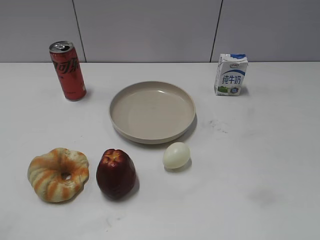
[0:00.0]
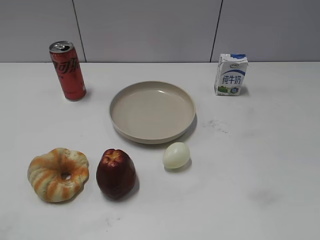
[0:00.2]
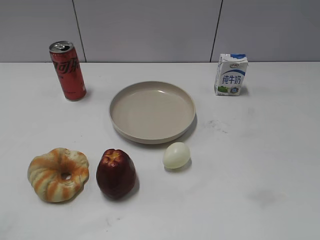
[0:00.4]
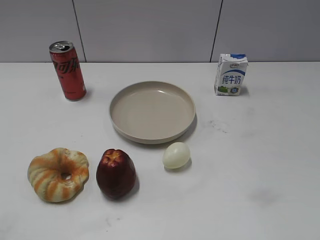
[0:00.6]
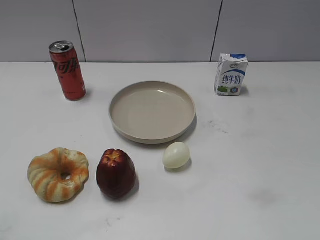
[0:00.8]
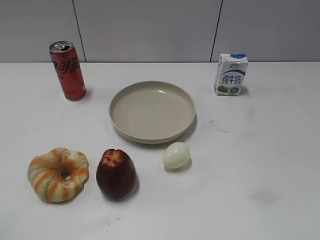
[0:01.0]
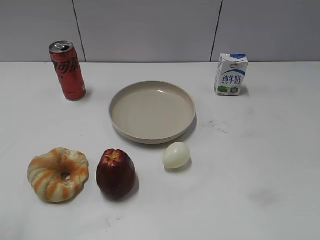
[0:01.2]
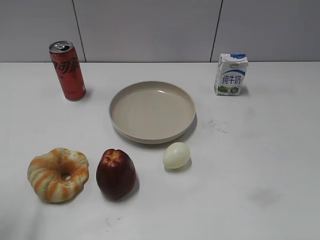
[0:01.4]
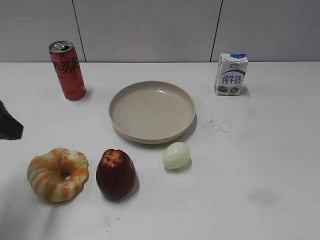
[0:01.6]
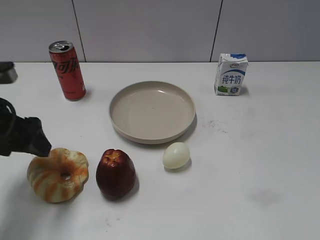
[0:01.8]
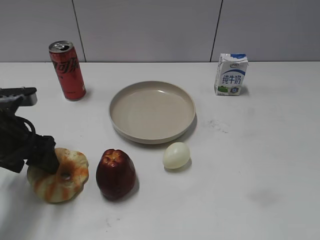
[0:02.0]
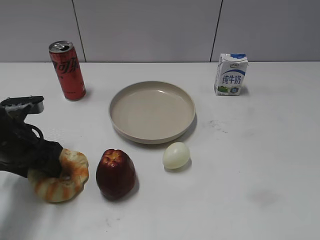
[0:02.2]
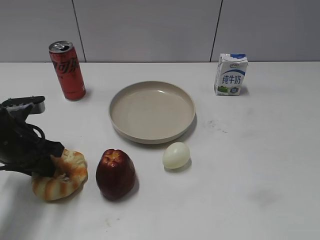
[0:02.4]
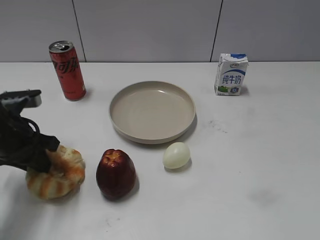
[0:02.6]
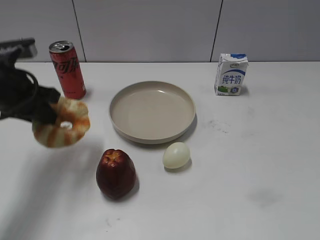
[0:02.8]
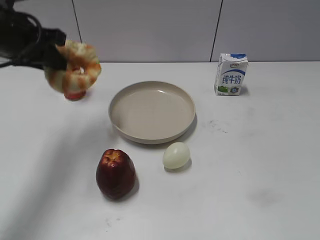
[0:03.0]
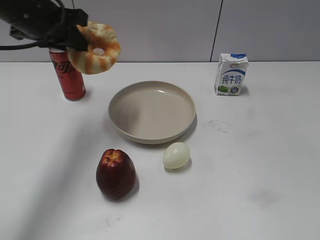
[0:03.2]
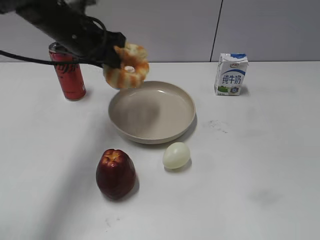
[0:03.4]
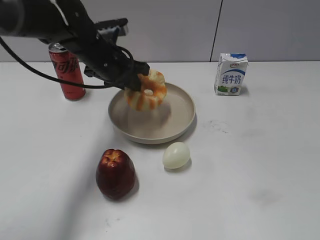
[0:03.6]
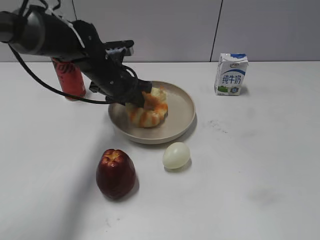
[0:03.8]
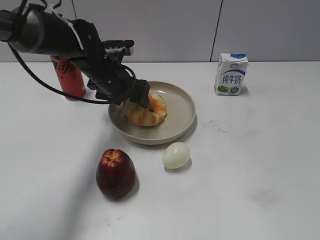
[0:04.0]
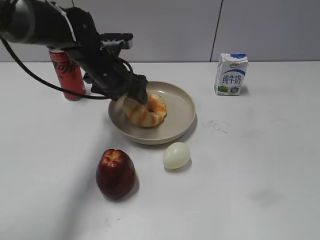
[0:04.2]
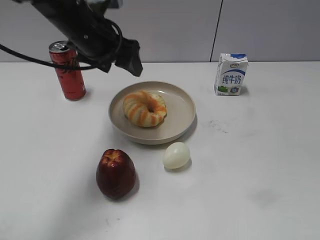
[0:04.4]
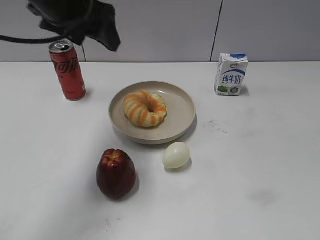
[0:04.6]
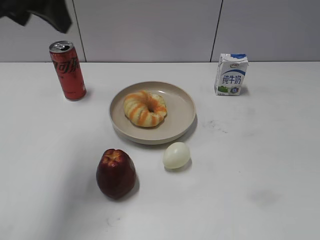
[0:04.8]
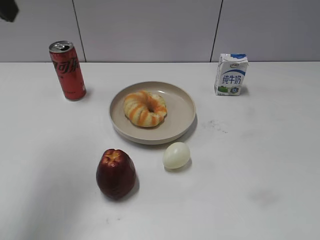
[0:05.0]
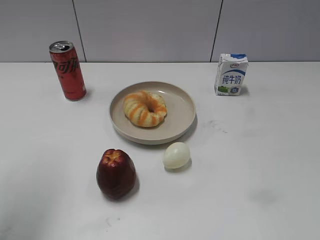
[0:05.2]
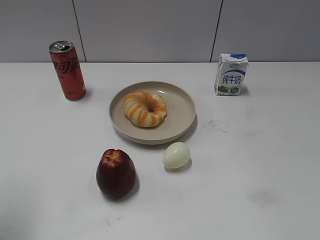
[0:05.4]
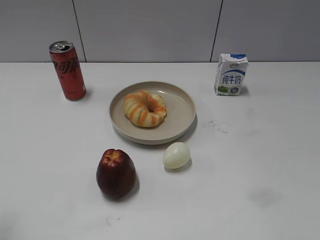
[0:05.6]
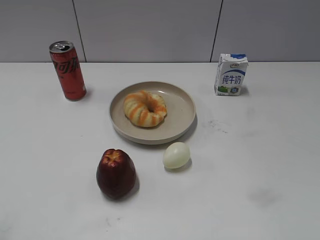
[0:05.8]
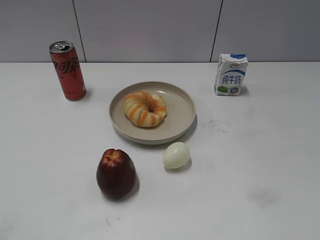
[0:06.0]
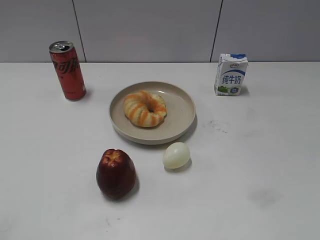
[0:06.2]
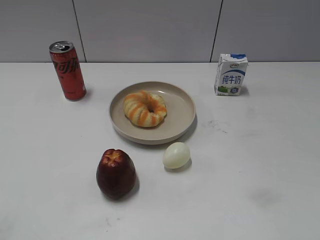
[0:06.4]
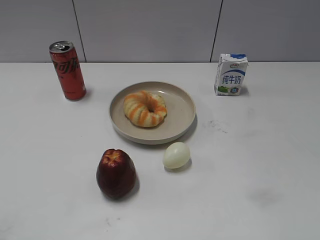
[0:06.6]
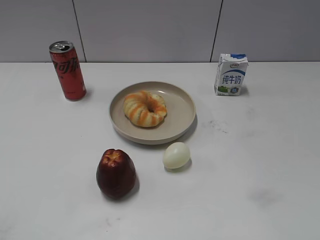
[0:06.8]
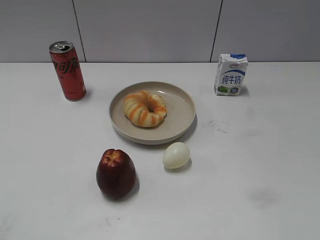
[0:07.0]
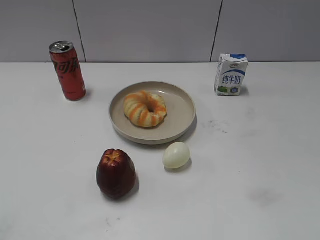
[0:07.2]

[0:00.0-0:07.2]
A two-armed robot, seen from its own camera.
Step, 0:00.8 to 0:02.4: Grasp the round bread with left gripper.
Step, 0:02.6 to 0:04.2: Place the round bread on the plate with left gripper.
0:01.4 to 0:02.8: The left gripper heads forward and to the right, covering about 15 cm, goes downward and returns, some 15 cm each way, and closes up.
0:02.8 to 0:04.4: The left gripper moves up and down over about 15 cm, changing direction 2 times, and opens up.
0:04.4 to 0:05.8: The left gripper travels backward and to the left by about 35 cm.

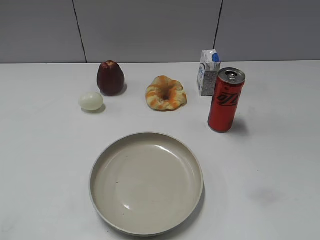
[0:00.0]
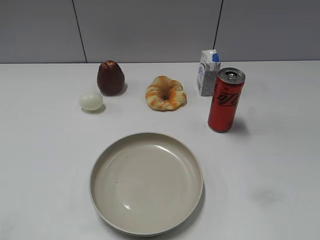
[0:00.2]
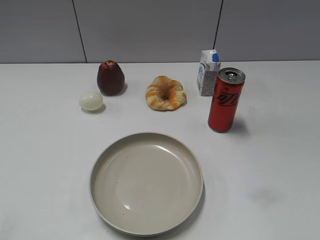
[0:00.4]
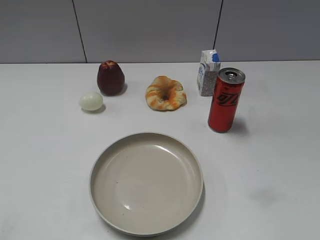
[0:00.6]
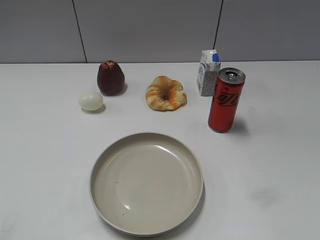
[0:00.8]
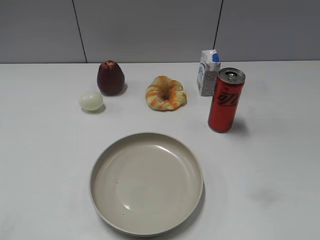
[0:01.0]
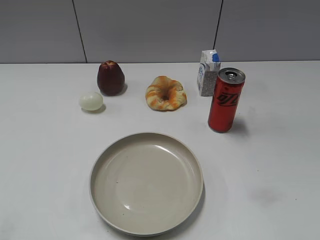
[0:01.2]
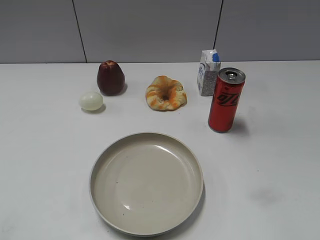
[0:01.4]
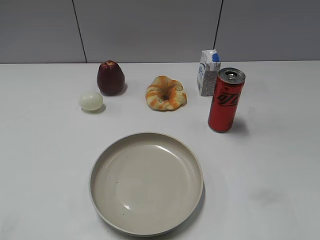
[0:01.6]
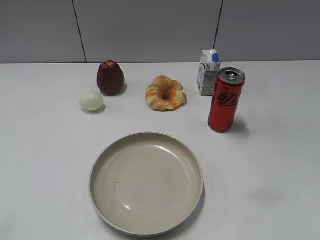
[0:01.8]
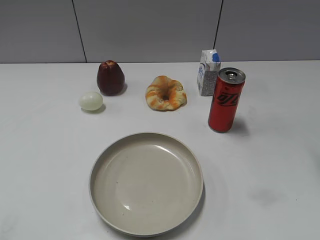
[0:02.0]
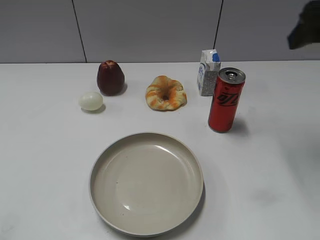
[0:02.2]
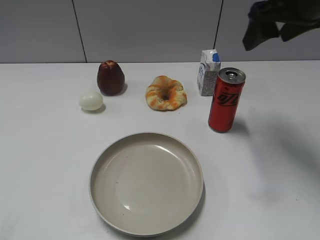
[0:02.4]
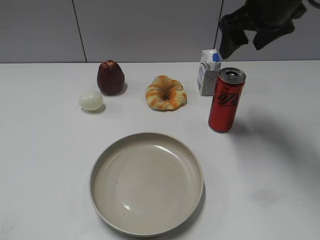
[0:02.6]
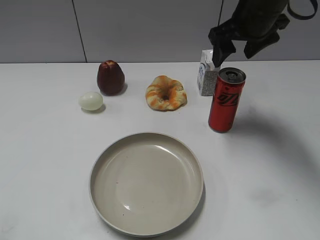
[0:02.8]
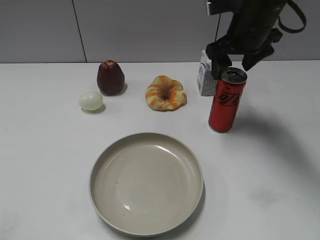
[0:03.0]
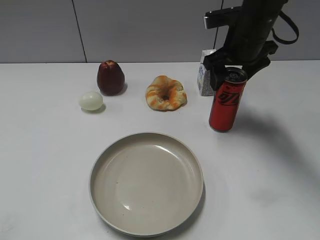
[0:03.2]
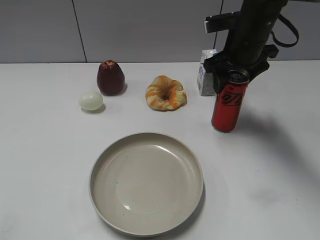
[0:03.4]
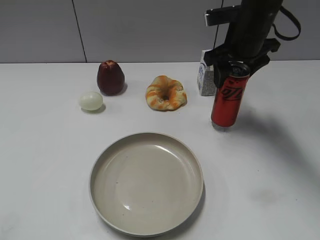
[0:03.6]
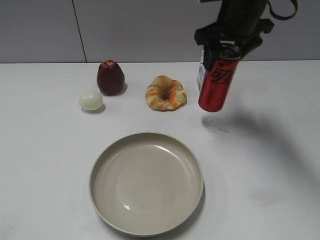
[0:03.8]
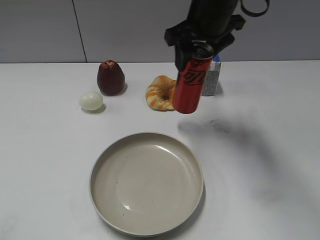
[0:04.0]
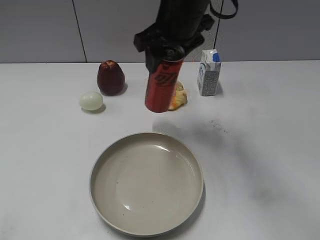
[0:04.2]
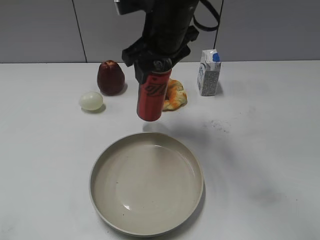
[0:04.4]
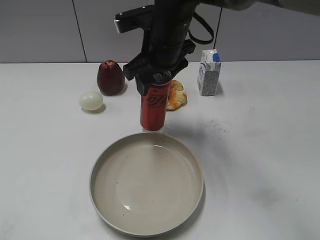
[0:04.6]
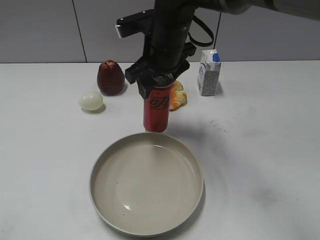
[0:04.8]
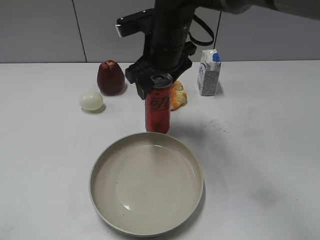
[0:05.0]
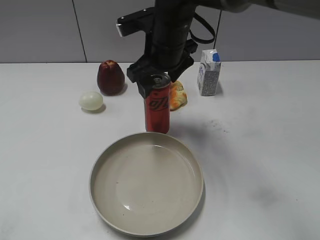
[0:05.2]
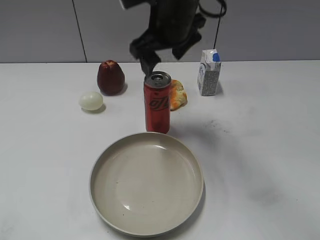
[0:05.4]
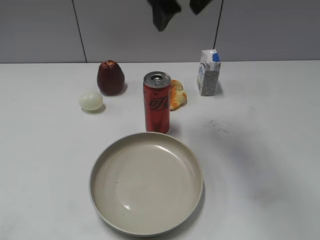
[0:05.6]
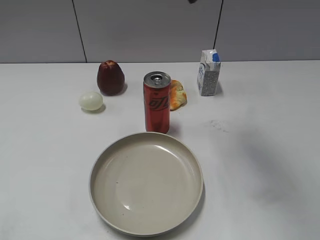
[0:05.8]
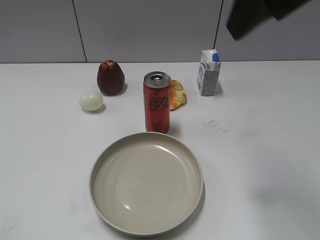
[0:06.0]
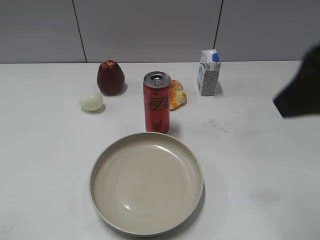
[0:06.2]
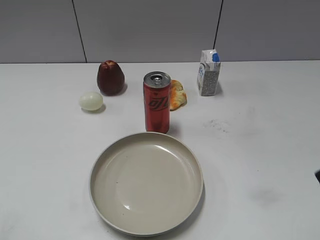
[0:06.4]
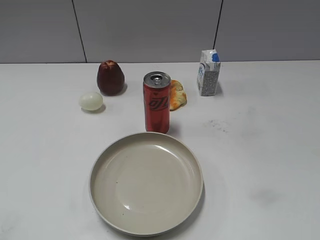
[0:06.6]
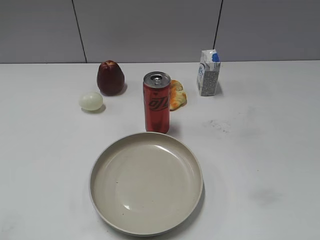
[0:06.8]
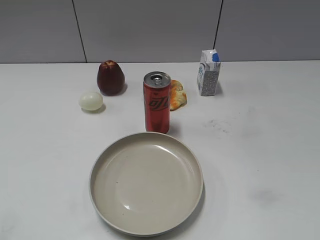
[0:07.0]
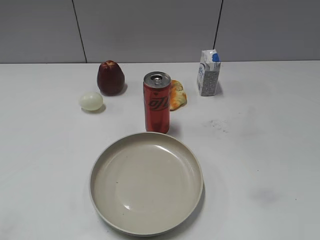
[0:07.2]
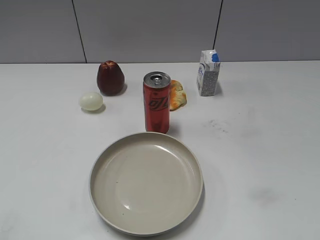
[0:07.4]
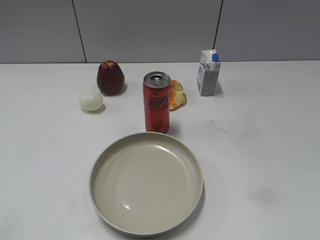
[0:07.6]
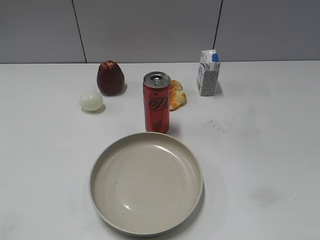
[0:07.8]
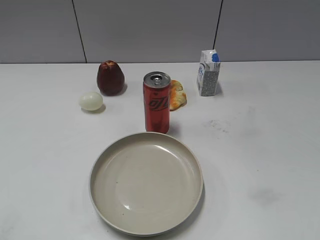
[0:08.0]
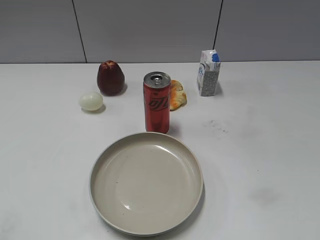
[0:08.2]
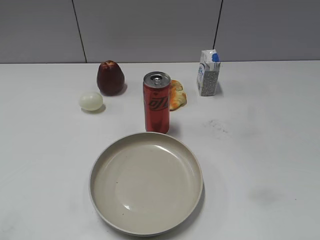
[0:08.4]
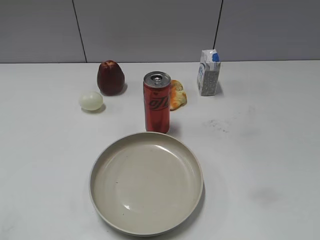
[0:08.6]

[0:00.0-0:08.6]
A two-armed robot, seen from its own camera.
Step, 0:03.4 to 0:05.2: Place the cola on the plate with right gripper.
0:01.4 to 0:02.8: The right gripper goes some 40 cm forward and to the left.
0:02.8 to 0:04.4: The right gripper goes roughly 15 cm to the left, and closes up.
0:04.4 to 0:05.8: The right gripper goes some 15 cm upward, to the right and backward, and opens up.
0:05.8 to 0:07.2: The right gripper travels backward, to the right and downward by roughly 35 cm.

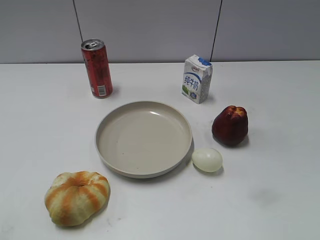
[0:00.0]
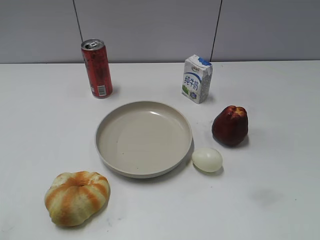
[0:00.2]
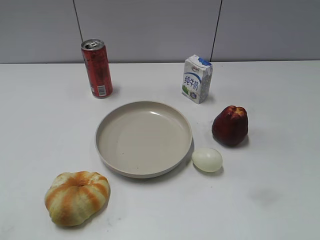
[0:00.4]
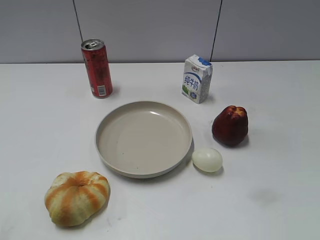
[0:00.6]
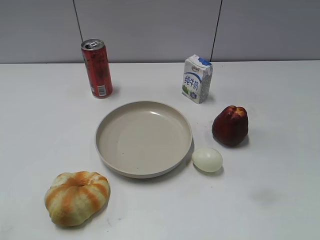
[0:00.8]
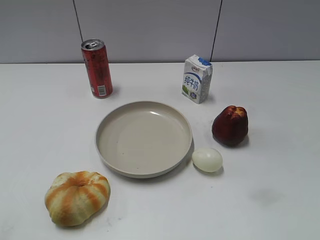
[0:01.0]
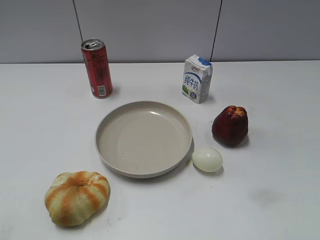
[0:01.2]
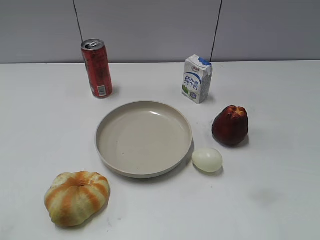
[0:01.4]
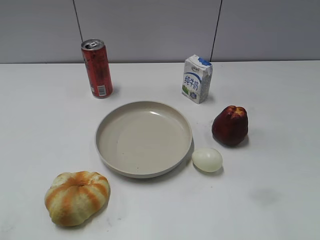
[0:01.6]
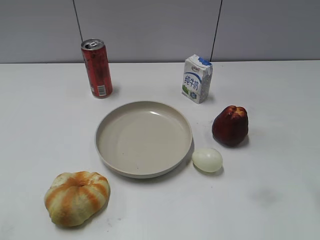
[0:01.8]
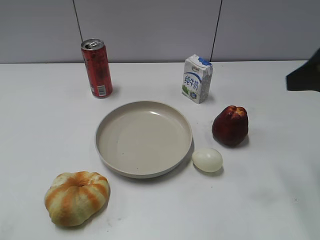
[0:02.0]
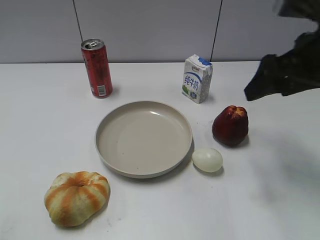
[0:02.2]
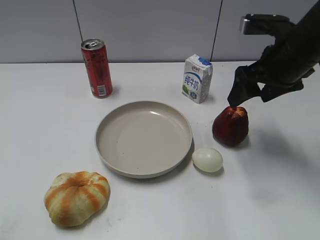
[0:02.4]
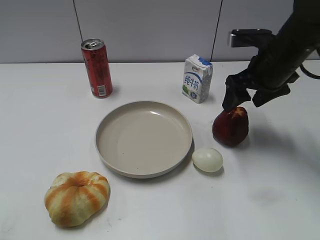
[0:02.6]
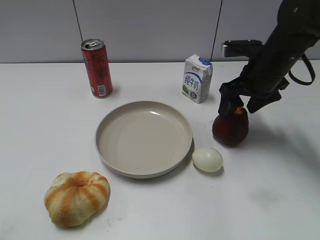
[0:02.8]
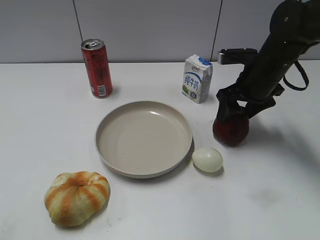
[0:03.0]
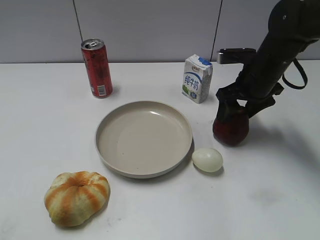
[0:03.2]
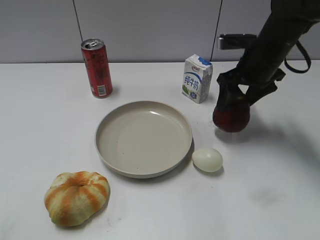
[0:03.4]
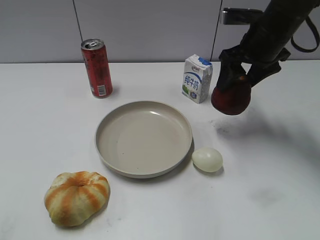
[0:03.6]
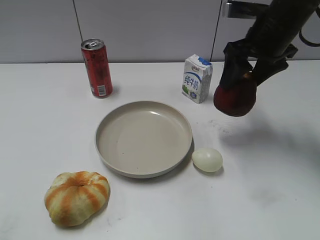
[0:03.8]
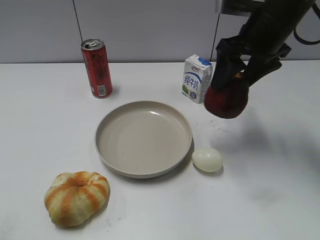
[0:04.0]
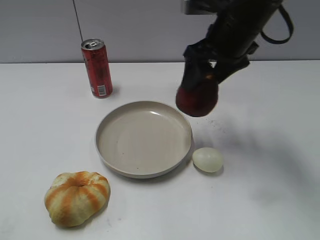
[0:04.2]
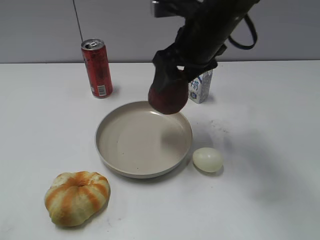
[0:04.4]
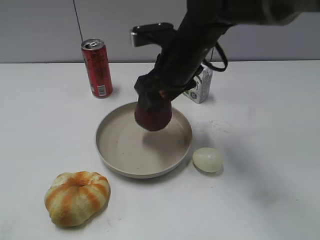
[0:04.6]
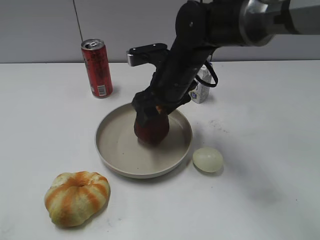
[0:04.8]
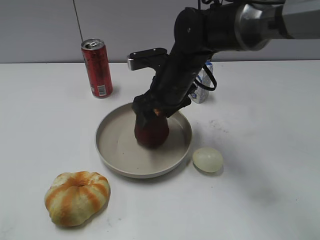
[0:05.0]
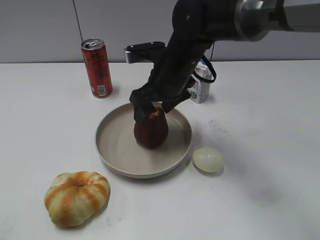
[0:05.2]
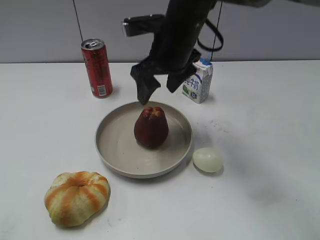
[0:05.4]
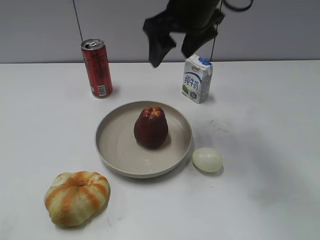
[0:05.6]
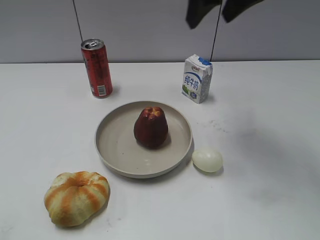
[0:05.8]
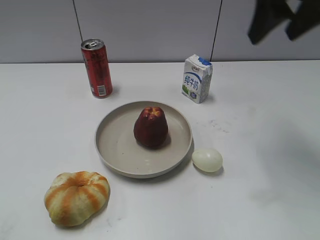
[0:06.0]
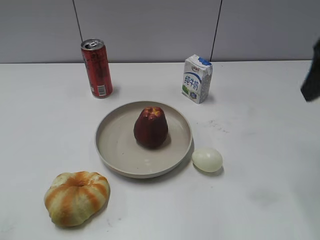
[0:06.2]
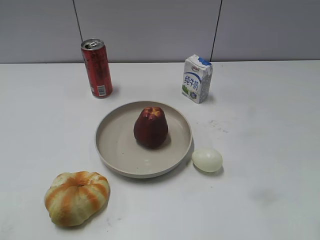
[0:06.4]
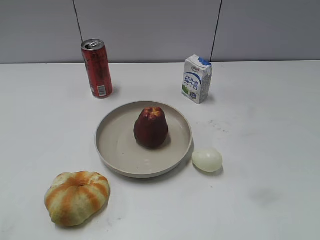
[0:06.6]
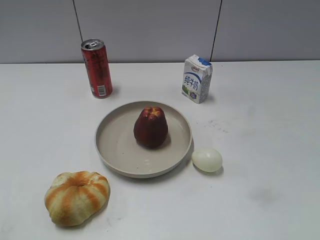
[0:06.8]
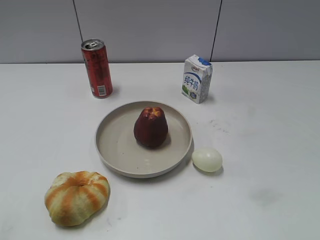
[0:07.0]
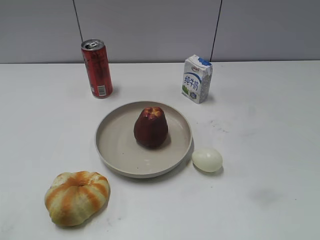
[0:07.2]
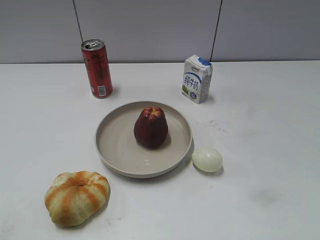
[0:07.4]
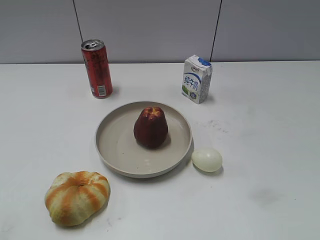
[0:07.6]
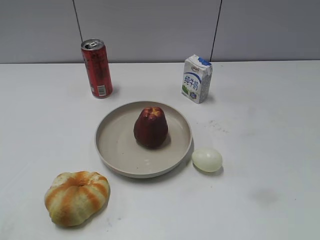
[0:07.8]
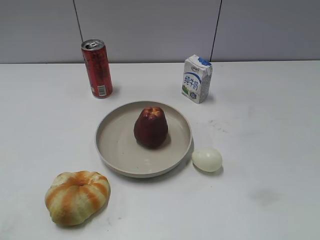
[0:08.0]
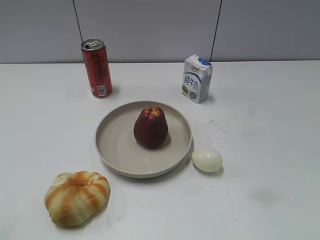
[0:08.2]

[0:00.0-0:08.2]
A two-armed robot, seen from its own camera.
Step, 0:01.2 to 0:03.0: Grasp the apple with right gripper.
Step, 0:03.2 to 0:05.4: Place the apple on the plate with right gripper.
0:01.6 to 0:03.2: The right gripper goes about 35 cm forward and downward.
0:03.2 to 0:05.0: The right gripper goes some 15 cm to the left.
0:05.0 to 0:06.6: The right gripper is displaced backward, to the right and upward by some 40 cm.
